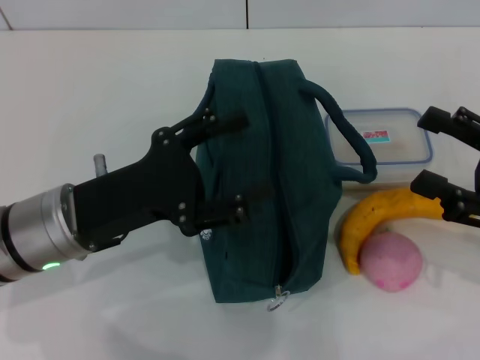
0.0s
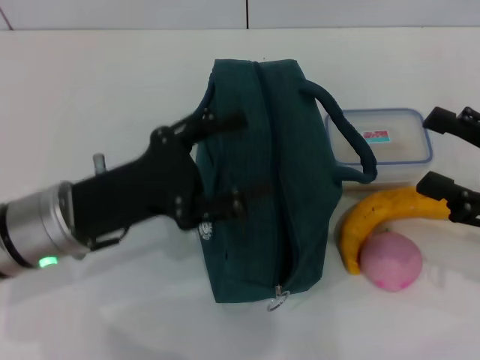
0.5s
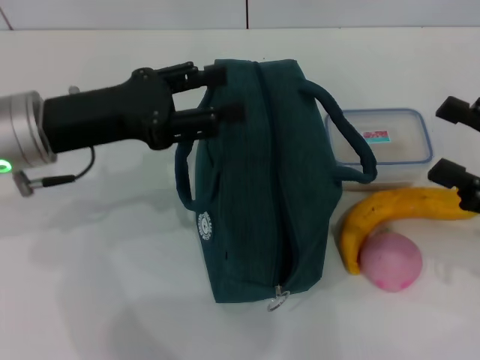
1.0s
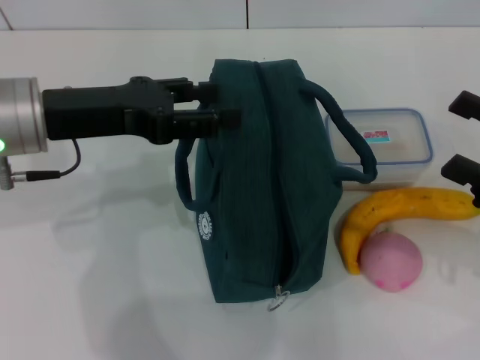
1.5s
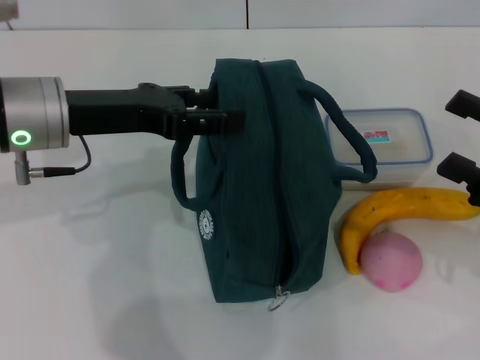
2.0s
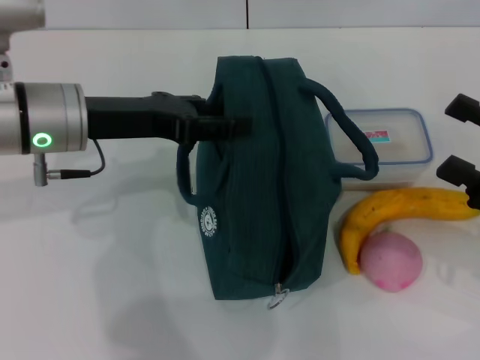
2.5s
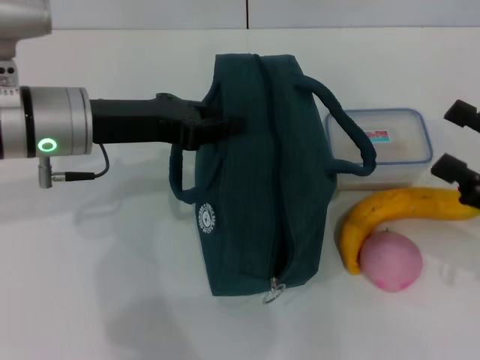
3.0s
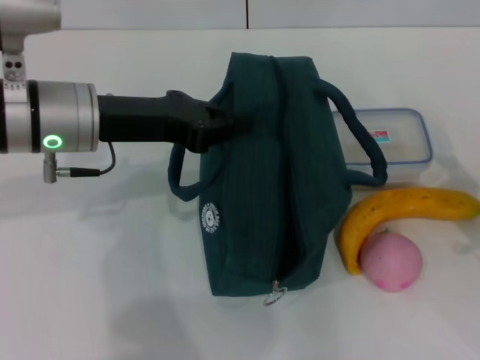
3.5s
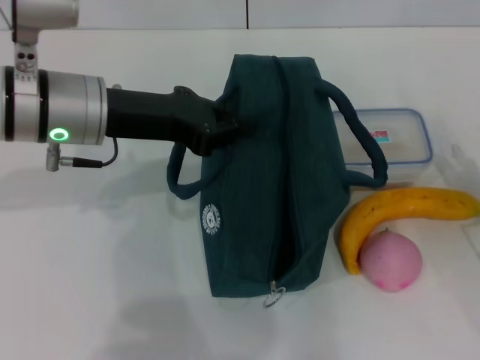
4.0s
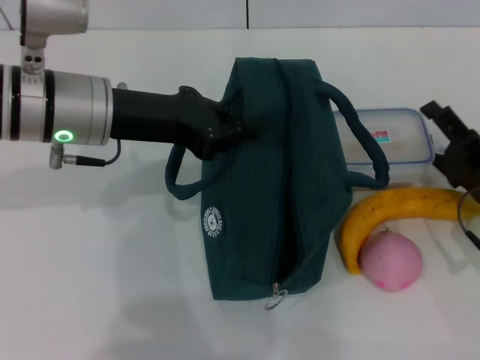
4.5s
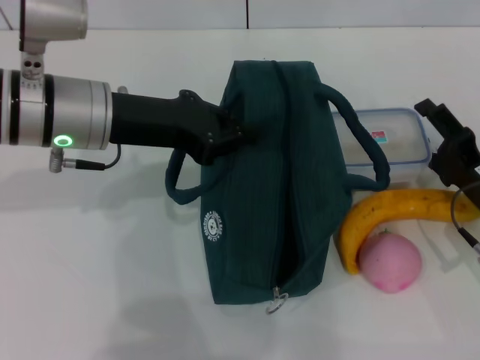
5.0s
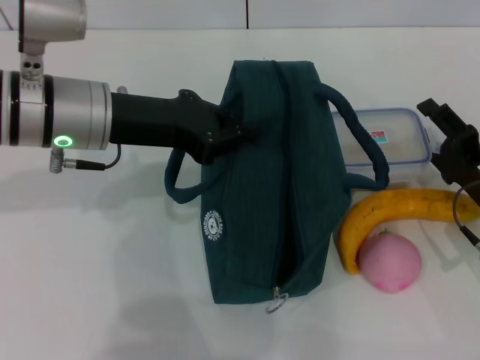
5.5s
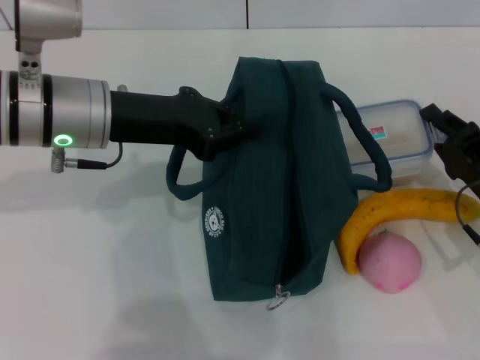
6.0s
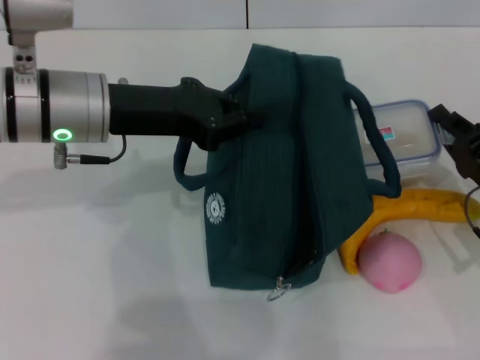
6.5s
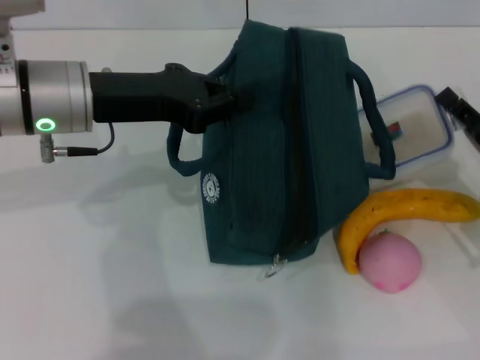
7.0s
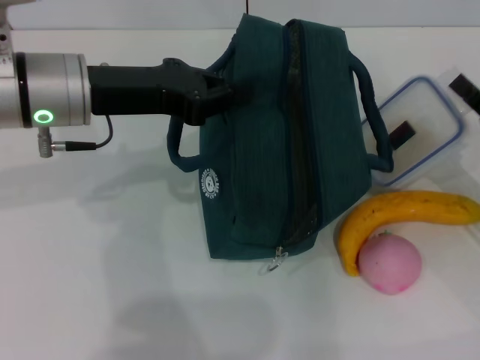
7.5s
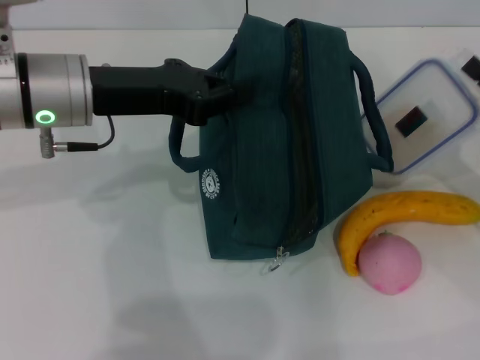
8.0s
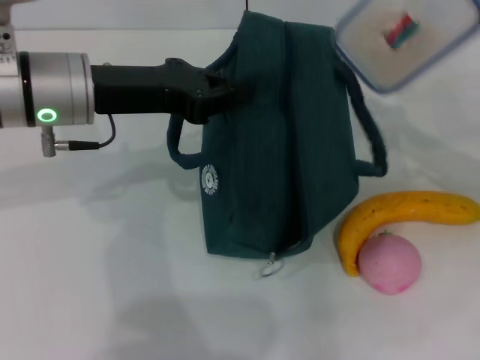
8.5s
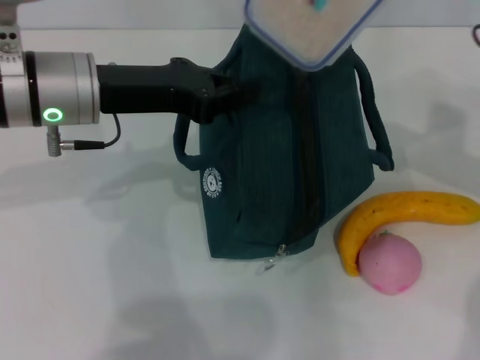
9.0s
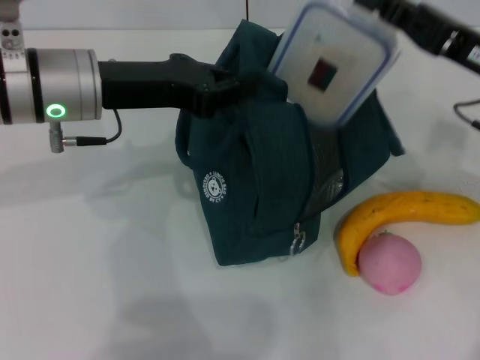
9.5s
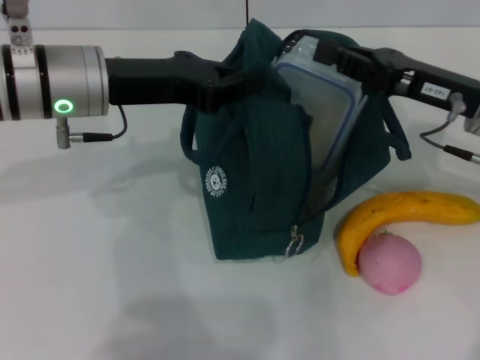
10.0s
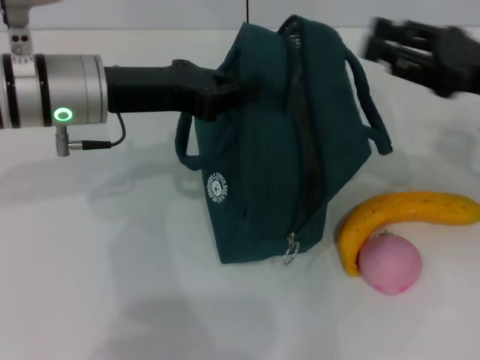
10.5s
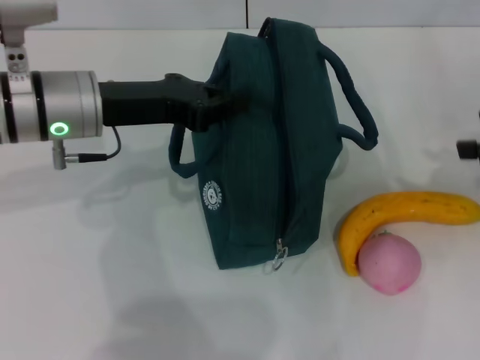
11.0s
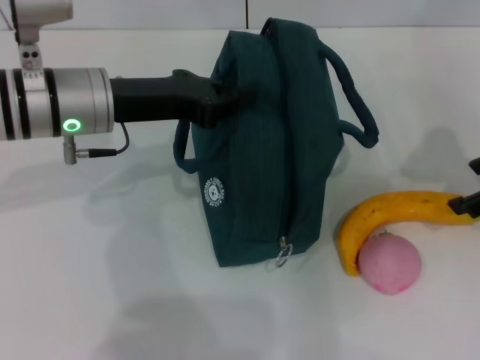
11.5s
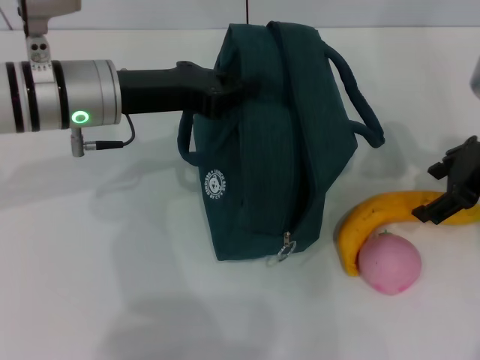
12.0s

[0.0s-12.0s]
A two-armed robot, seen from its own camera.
Step, 0.0s to 3.0s: Hold the lunch bag with your left hand.
Step, 3.5s to 6.0s: Pick up the lunch box with your right hand.
Step, 6.5s to 10.0s: Place the lunch box into the lunch bag with your right hand.
0.0s to 2.0s: The left gripper shifts approximately 10 cm upward and forward.
2.0s to 4.0s: The left gripper closes its fingers. The right gripper heads downward, covering about 10 cm.
4.0s to 6.0s: The right gripper ends up some 5 cm from where it was, and closes up.
6.0s to 8.0s: The right gripper is displaced upward and to the right by about 10 cm, and closes its fingers.
8.0s to 10.0s: The right gripper goes about 10 cm to the left, upward and forward.
10.0s to 12.0s: The right gripper travels to the right and back again, some 10 cm each way, and opens.

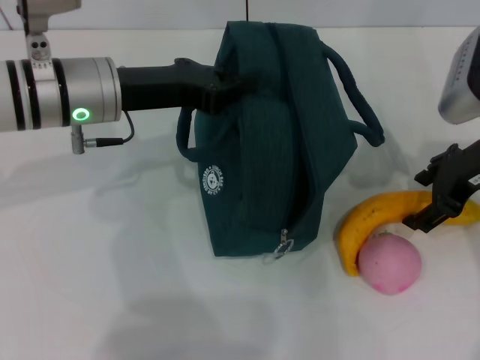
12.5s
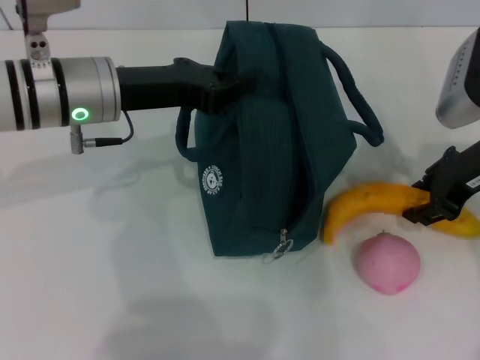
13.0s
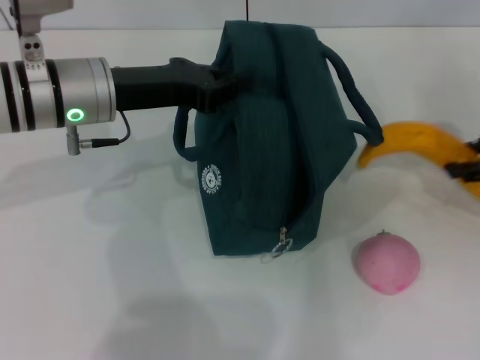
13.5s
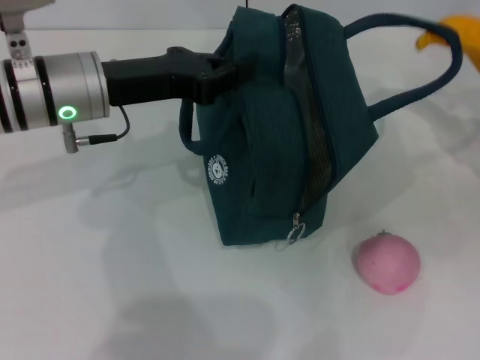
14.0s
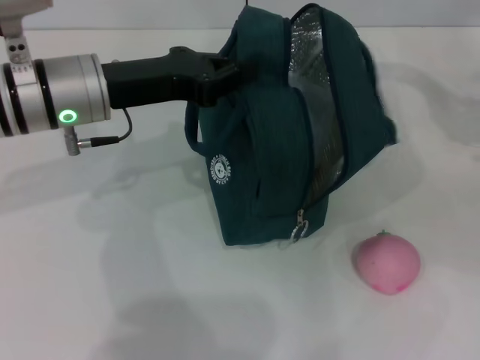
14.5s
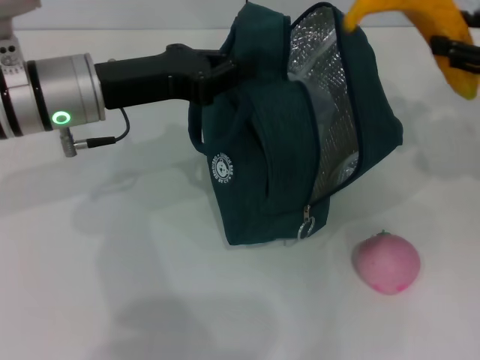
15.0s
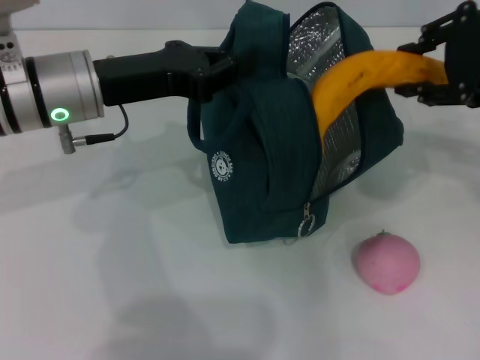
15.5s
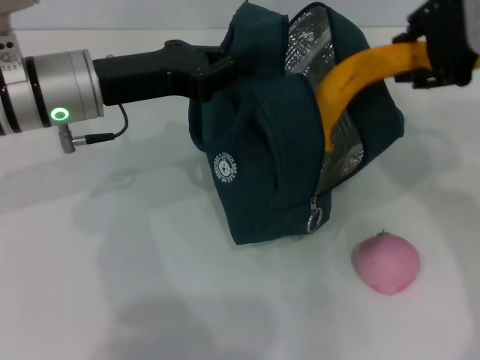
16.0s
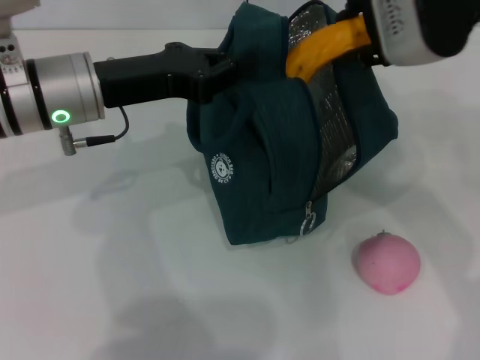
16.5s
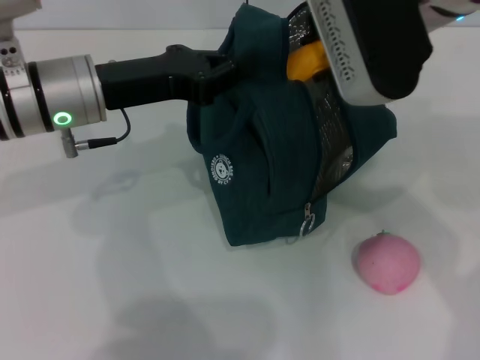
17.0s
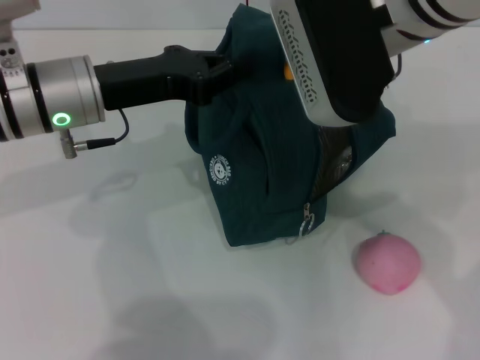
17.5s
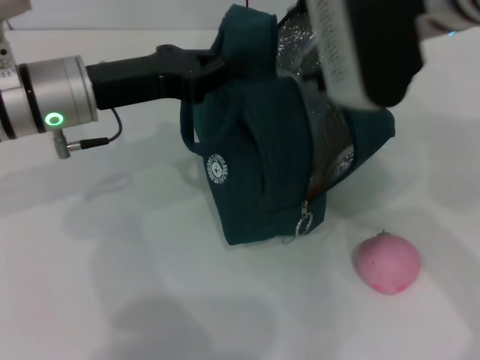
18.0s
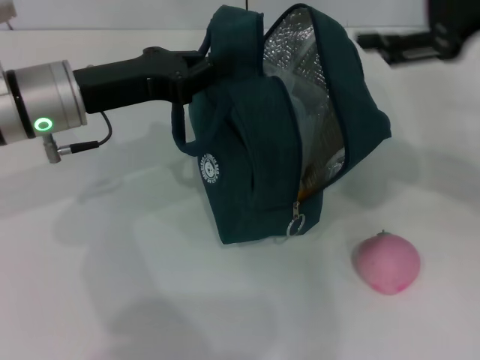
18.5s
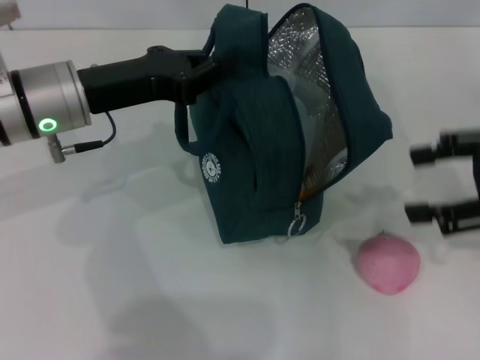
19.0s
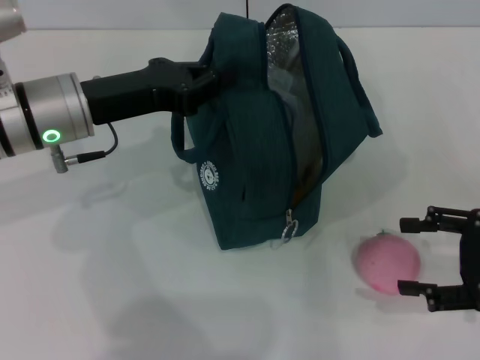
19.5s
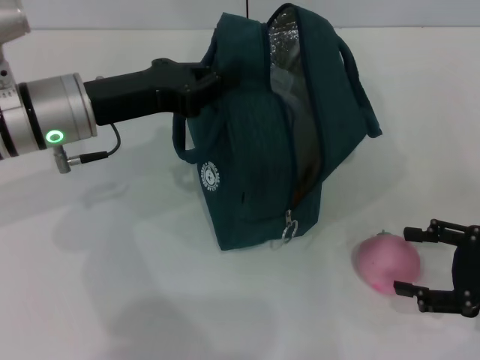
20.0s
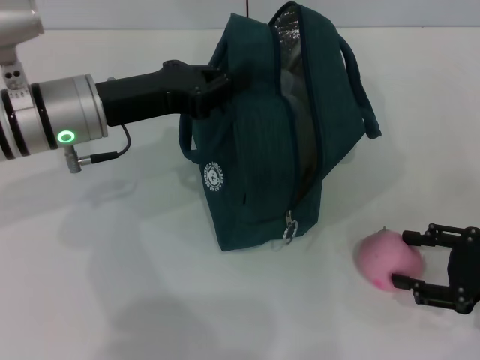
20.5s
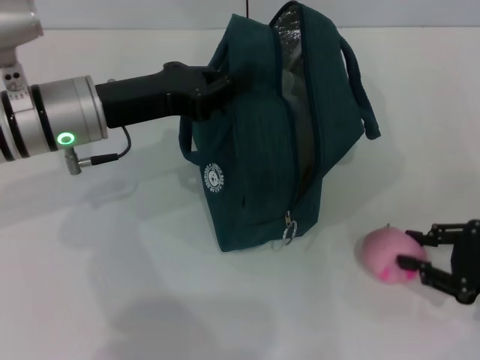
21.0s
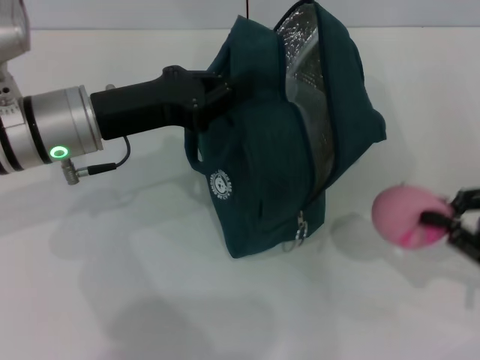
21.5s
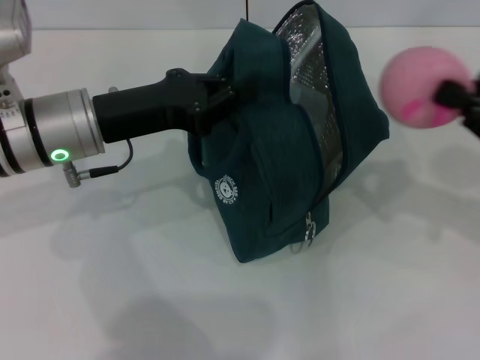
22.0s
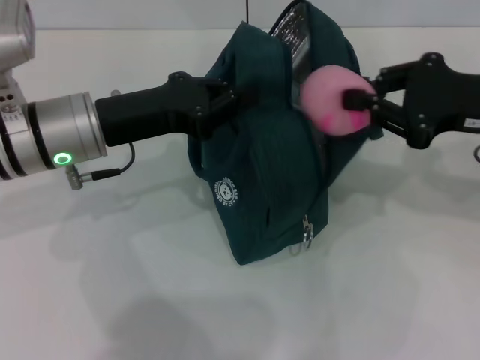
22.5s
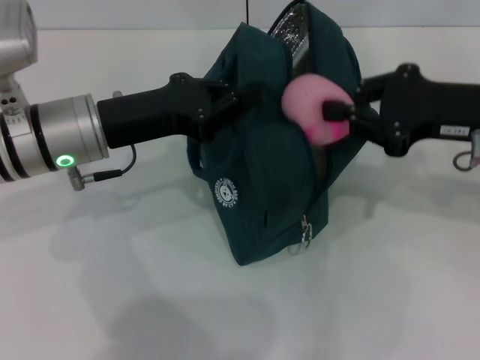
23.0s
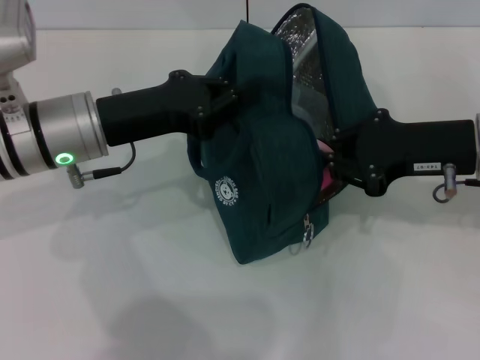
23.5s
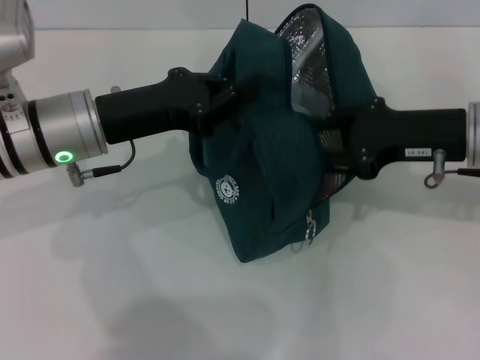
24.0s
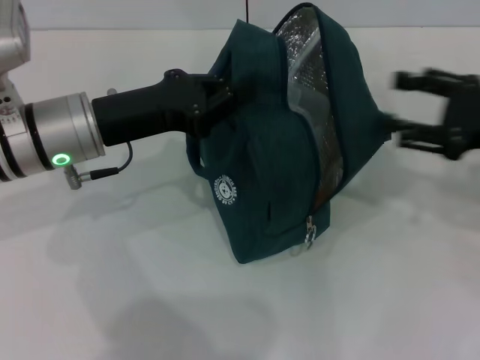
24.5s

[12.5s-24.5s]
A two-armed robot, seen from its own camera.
Step, 13.0s to 17.5s: Put the banana into the lunch bag with your right hand.
Step, 18.0s to 20.5s: Grab the peach with your right hand.
12.5s to 14.5s: The right gripper travels to the right by some 15 cm, and closes.
14.5s to 16.5s: The right gripper goes about 25 cm to the left and upward.
16.5s to 18.5s: The right gripper goes about 10 cm to the right, and opens its fingers.
18.5s to 20.5s: The right gripper moves downward, roughly 25 cm.
20.5s to 22.5s: The right gripper moves upward, forward and to the left, some 15 cm, and closes.
22.5s to 24.5s: The right gripper opens its fingers.

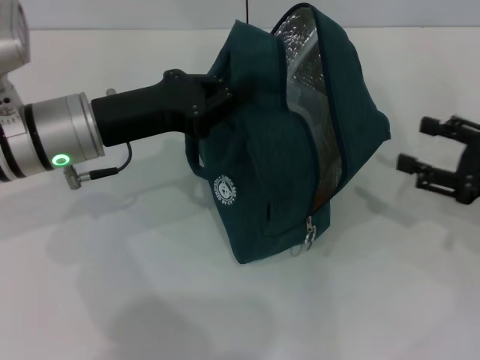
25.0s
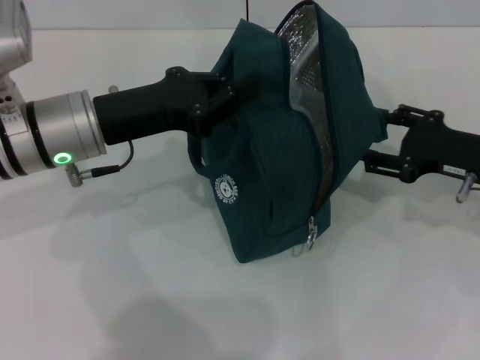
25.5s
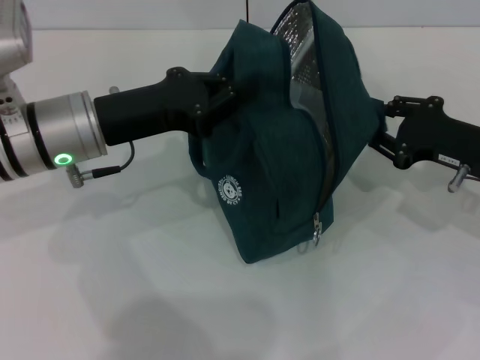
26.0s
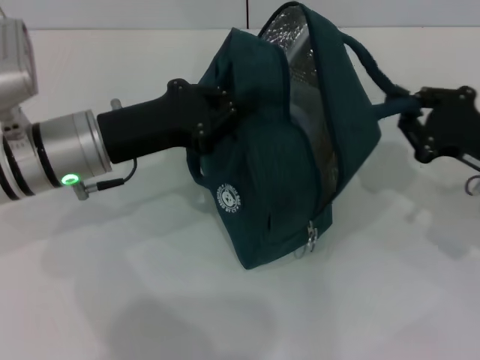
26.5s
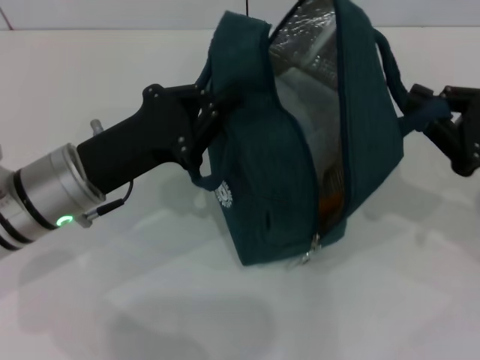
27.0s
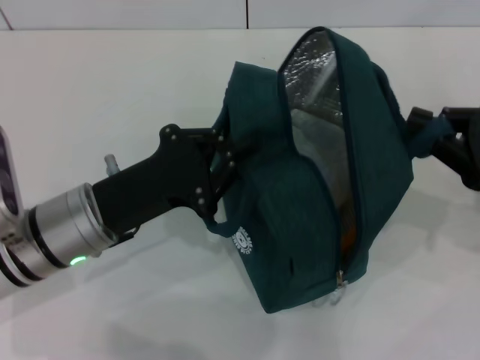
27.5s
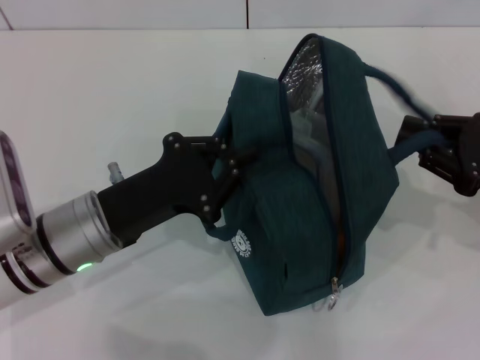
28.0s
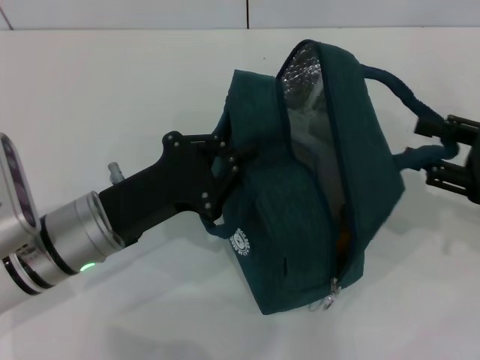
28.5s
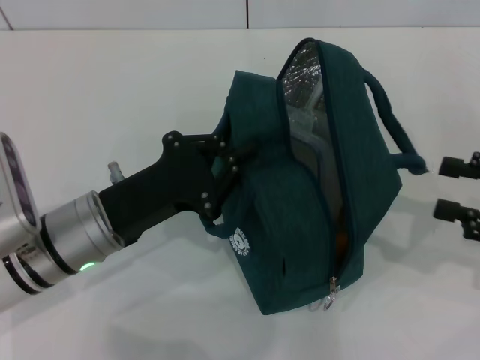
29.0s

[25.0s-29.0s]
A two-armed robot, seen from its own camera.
Step, 25.0s to 28.5s: Hold the lunch bag with your right hand.
25.0s to 27.0s: The right gripper closes up; the left gripper shifts by roughly 5 cm.
27.0s to 29.0s: The right gripper changes place by approximately 5 cm, and opens its fingers.
